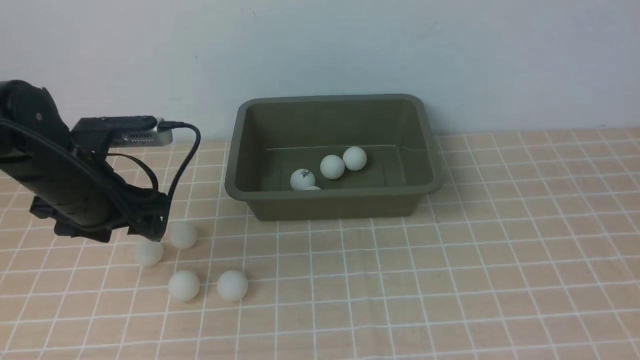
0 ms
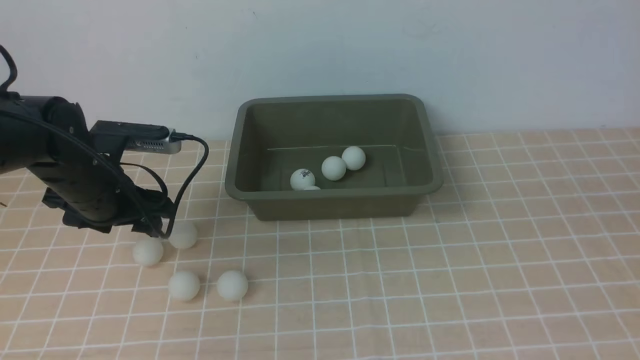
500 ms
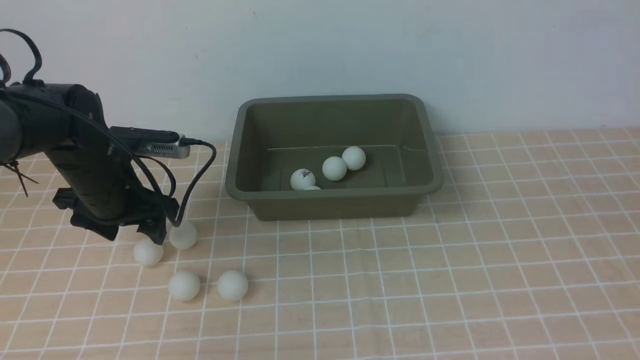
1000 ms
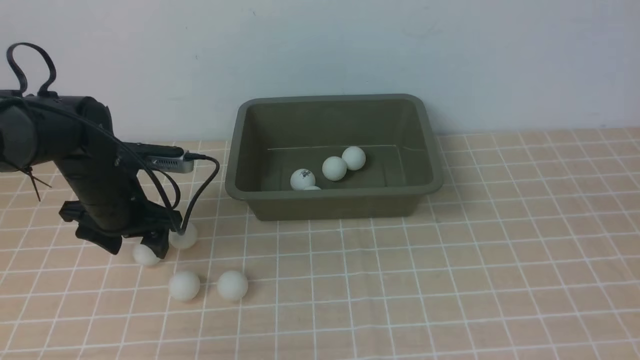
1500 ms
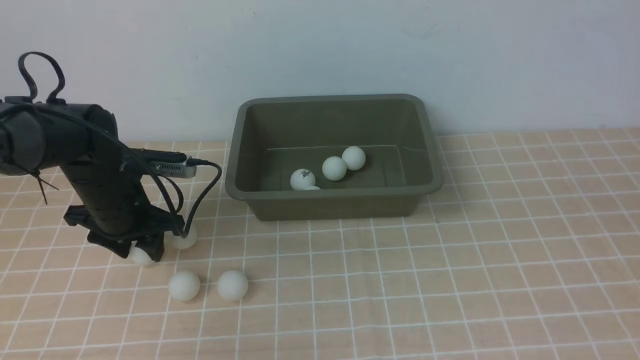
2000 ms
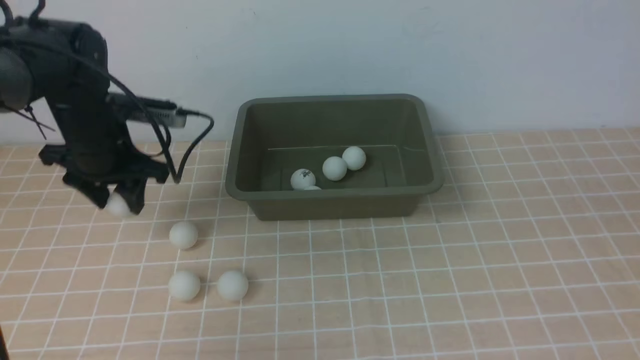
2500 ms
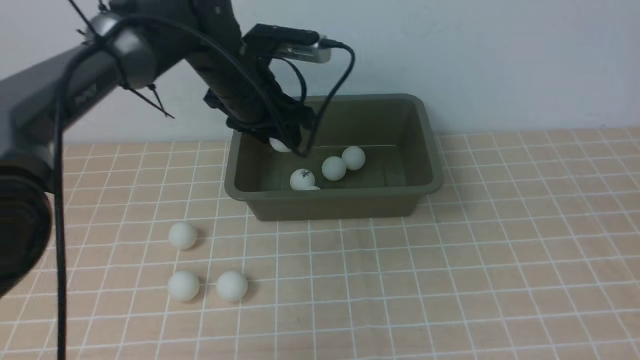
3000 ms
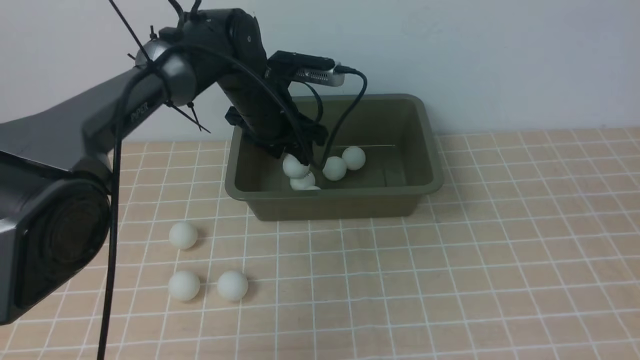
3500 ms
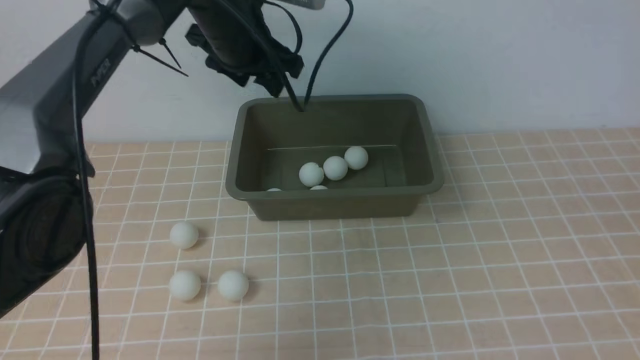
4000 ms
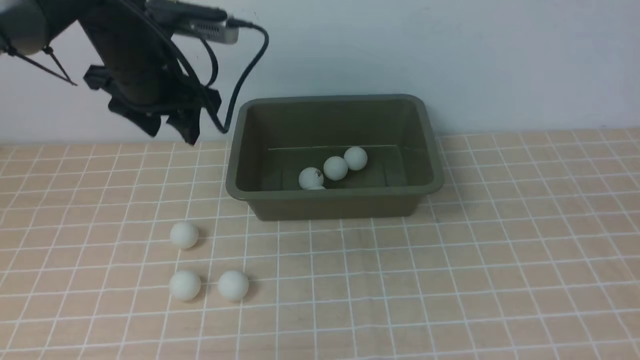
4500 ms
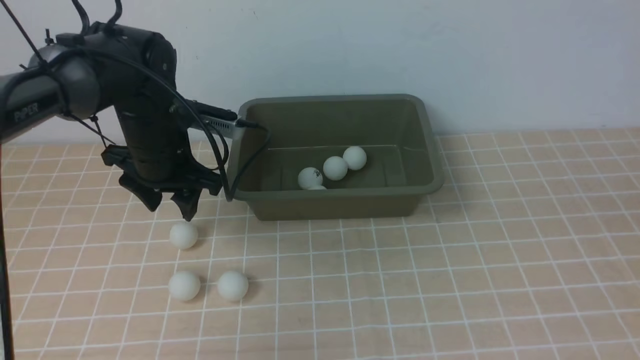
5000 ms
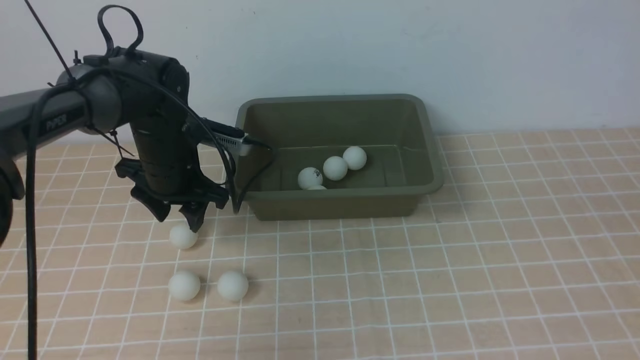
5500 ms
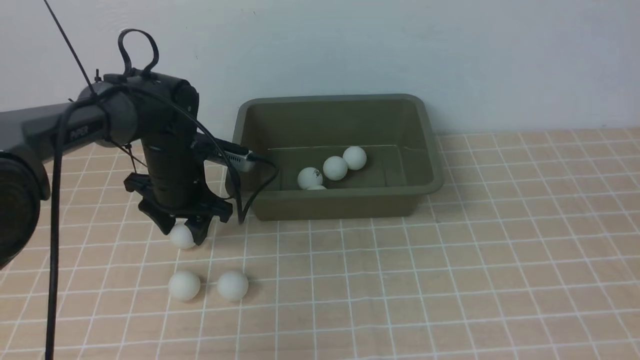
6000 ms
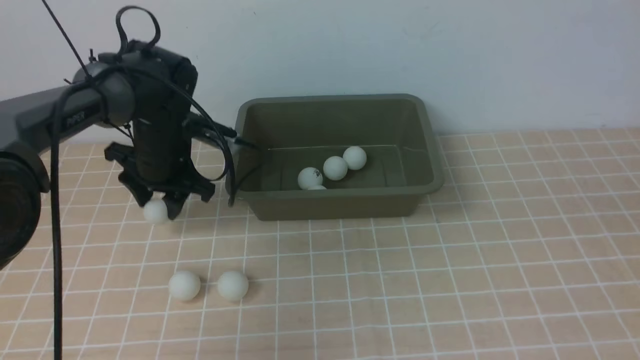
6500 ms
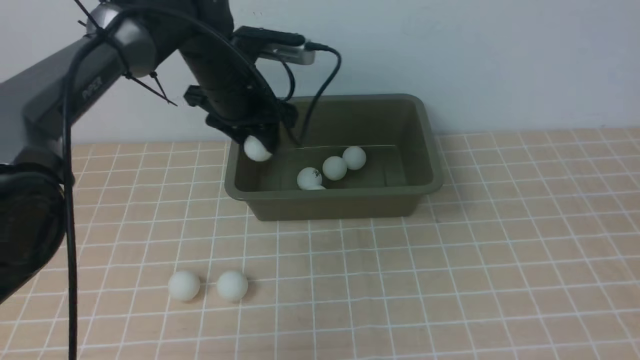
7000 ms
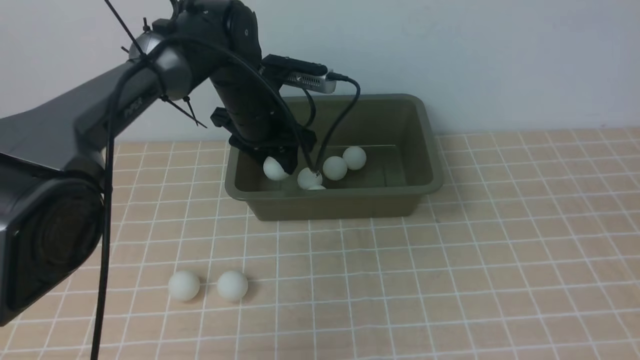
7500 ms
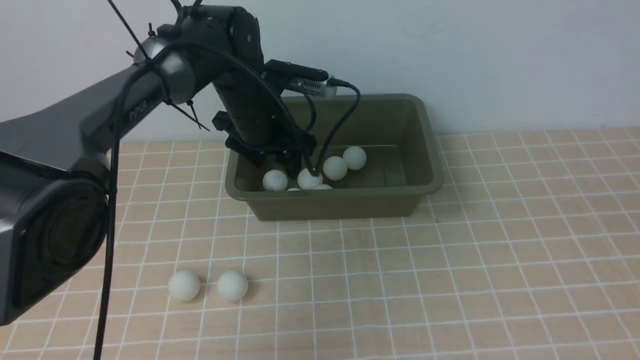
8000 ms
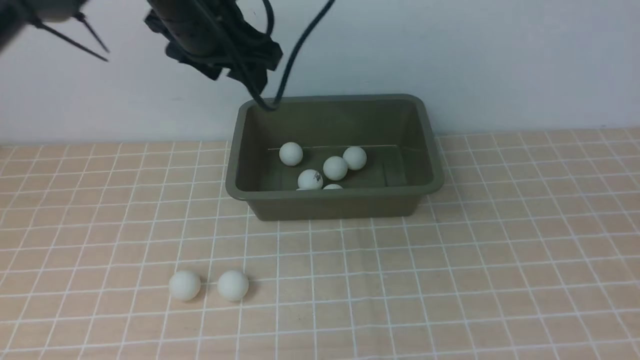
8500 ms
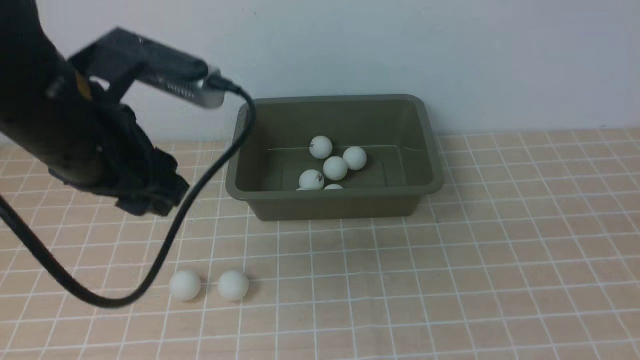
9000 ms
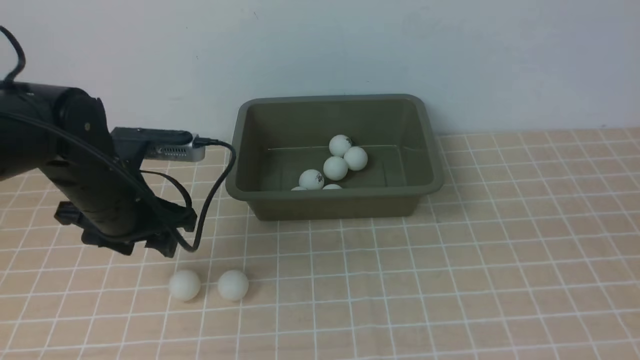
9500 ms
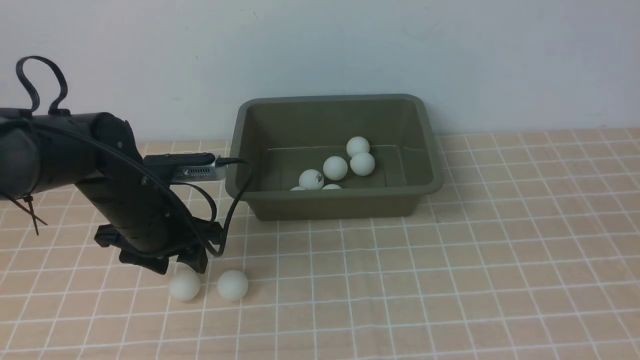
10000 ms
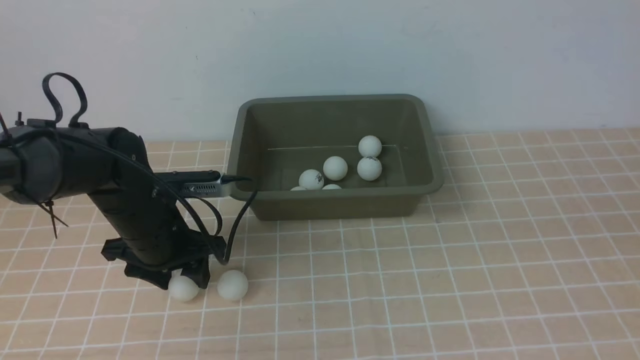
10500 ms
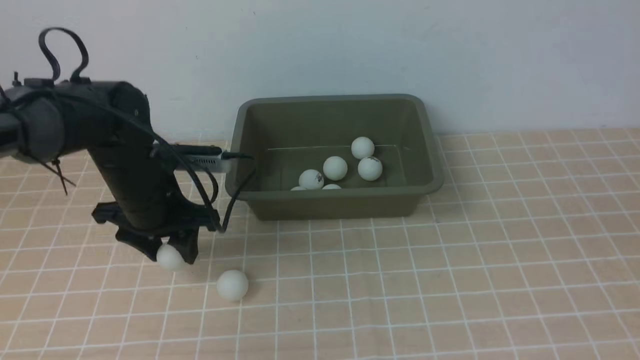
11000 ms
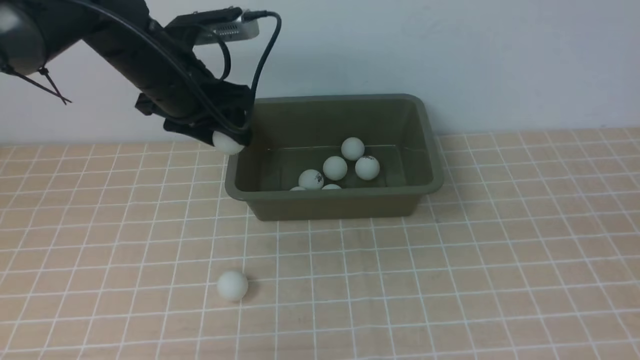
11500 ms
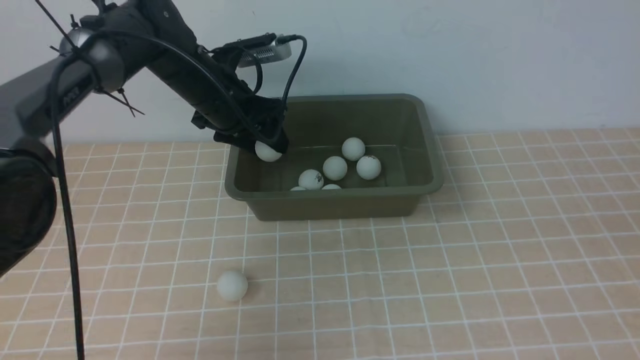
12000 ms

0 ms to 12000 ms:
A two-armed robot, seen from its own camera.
Step, 0 ms to 2500 ms: use the left arm to clamp the table tennis ball closest to it.
Step, 3000 ms to 3500 ms: use the left arm to put the table tennis ball into the box.
Step, 4000 ms to 6500 ms: use the left arm to clamp the table tennis ball closest to it.
Step, 7000 ms to 8000 ms: use the left arm to put the table tennis ball into the box.
Step, 8500 ms to 11000 ms: use the left arm to clamp the table tennis ball closest to it.
0 ms to 2000 ms: The left gripper travels downward and forward by approximately 10 cm.
2000 ms to 4000 ms: The left gripper is displaced upward, to the right and forward by approximately 25 cm.
4000 ms to 6000 ms: The left gripper is displaced downward and to the left by approximately 20 cm.
6000 ms to 8000 ms: The left gripper goes approximately 10 cm to the right and upward.
8000 ms to 10000 ms: The left gripper heads backward and to the left, covering roughly 15 cm, and moves some 15 cm upward and comes back.
10000 ms to 12000 ms: The left gripper goes about 15 cm forward and upward.

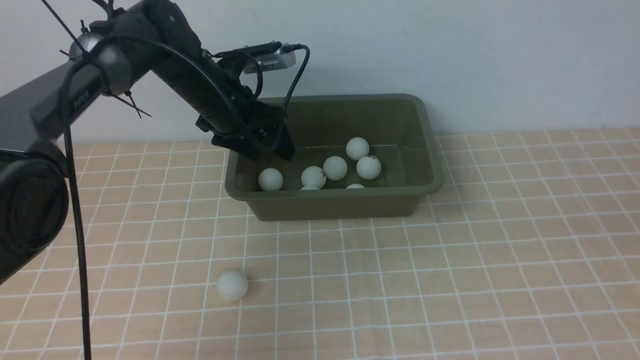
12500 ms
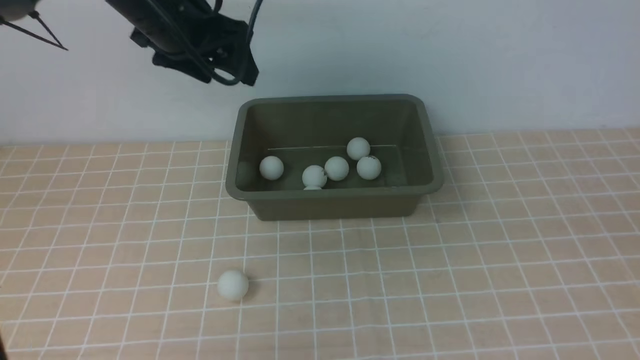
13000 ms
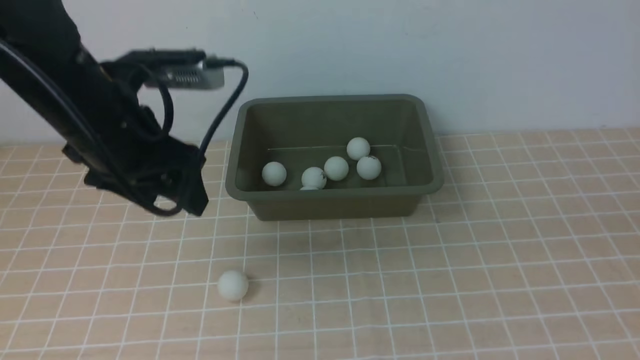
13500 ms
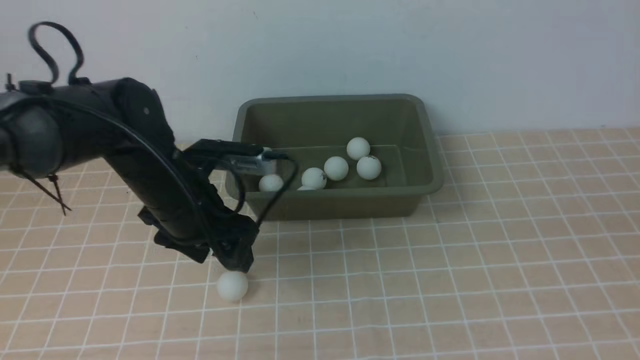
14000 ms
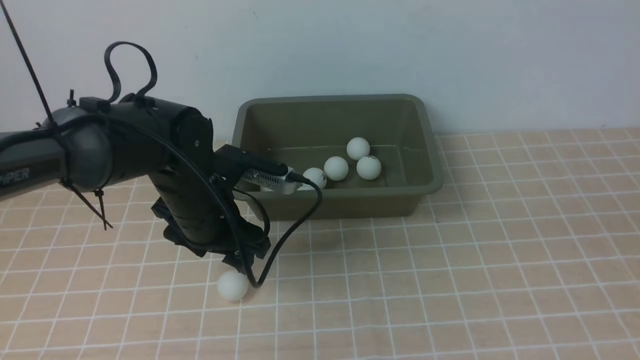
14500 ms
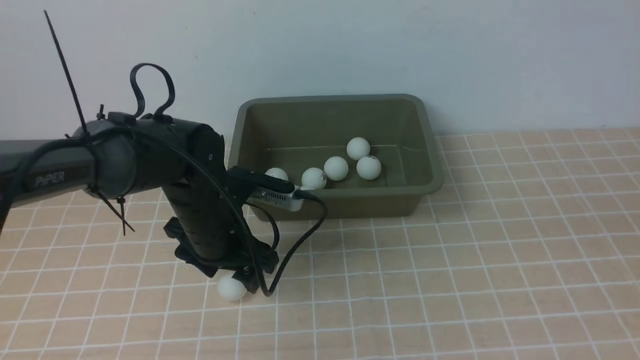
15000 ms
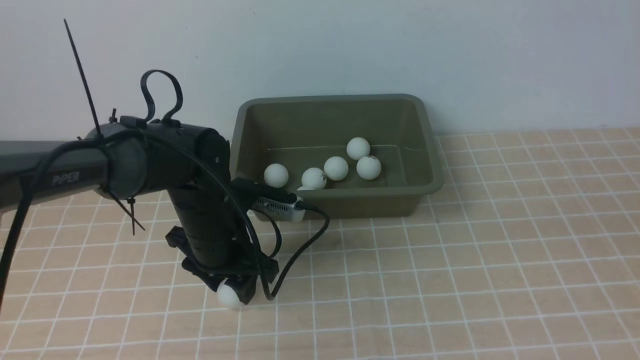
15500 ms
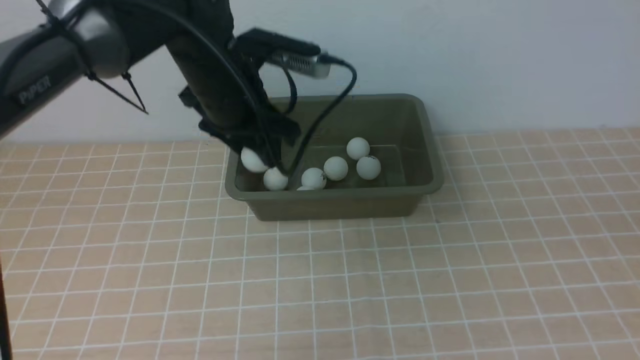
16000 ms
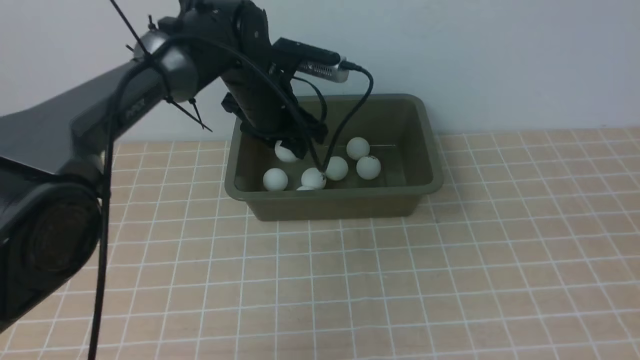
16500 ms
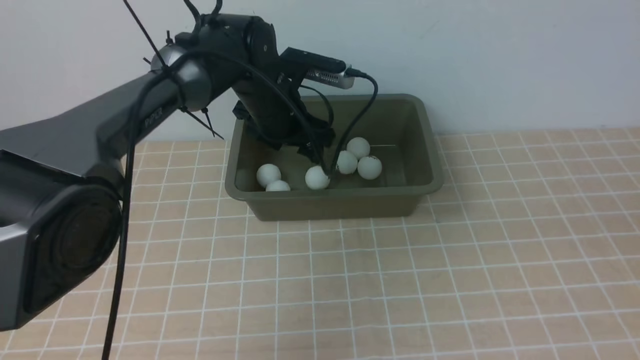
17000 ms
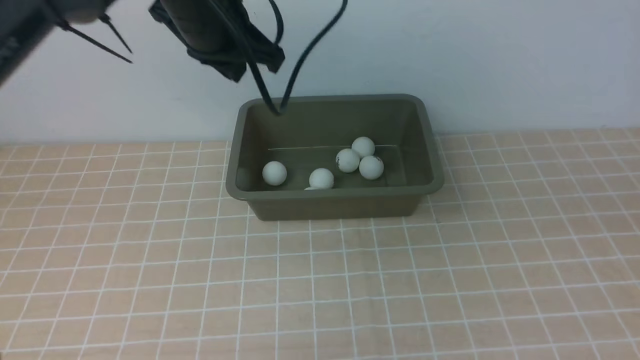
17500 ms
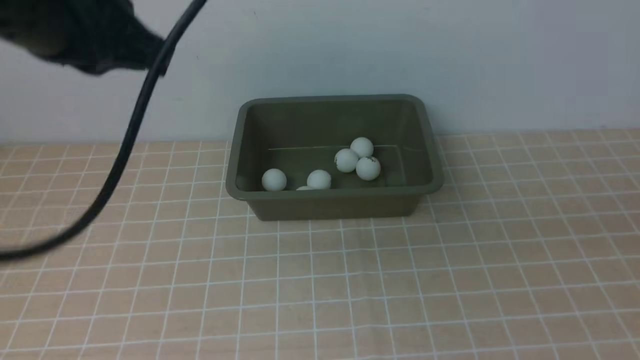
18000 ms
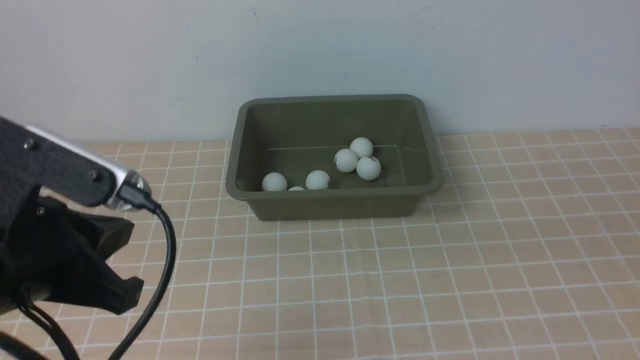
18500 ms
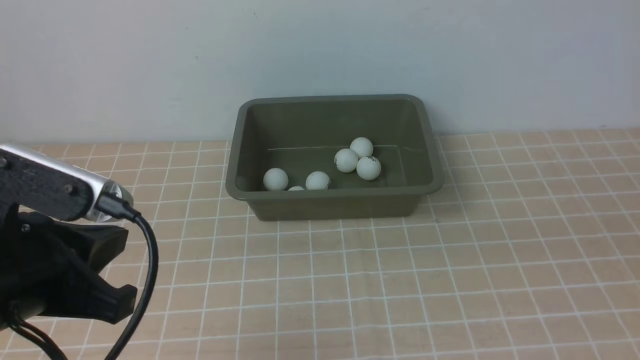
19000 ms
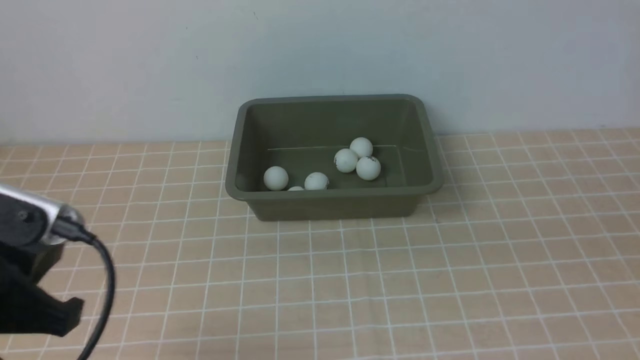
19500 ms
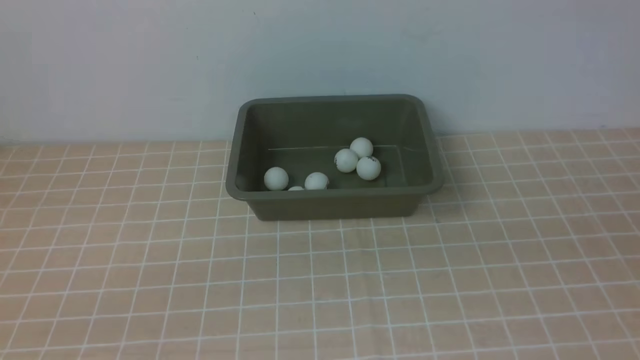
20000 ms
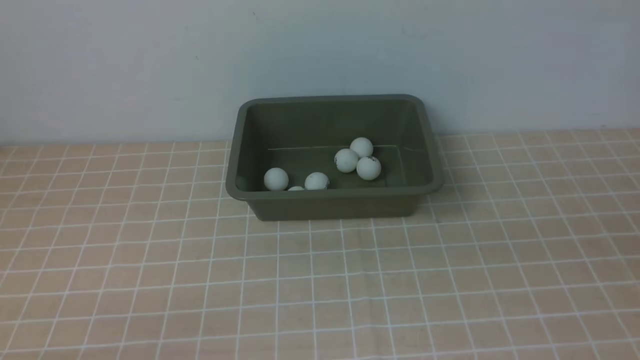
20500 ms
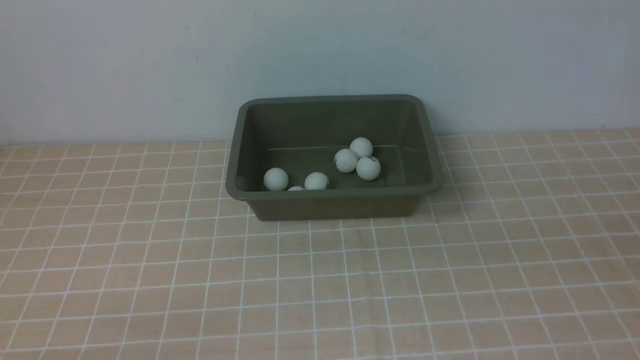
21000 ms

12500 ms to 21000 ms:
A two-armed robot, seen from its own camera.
Step, 13000 ms to 15500 ms: use the left arm to clamp the table tennis ball closest to it.
Step, 16000 ms to 17000 ms: use the left arm to put the table tennis ball into the box.
12500 ms to 14500 ms: The left gripper shifts approximately 15 cm backward, and goes upward and returns, some 10 cm each way.
14500 ms to 16500 ms: The left gripper is displaced forward, upward and to the right by about 15 cm.
16500 ms to 19000 ms: The right gripper is displaced downward and forward by approximately 10 cm, while the left gripper travels backward and to the left by roughly 35 cm, and closes up.
19000 ms to 21000 ms: The left gripper travels downward, backward and to the left by about 20 cm.
